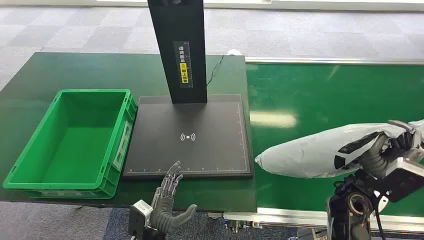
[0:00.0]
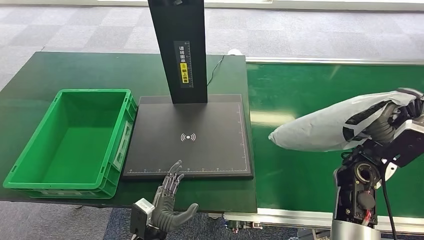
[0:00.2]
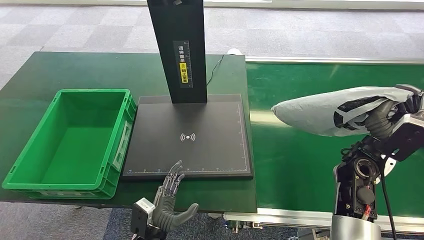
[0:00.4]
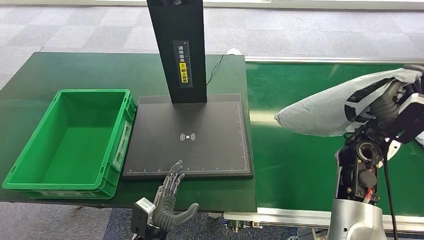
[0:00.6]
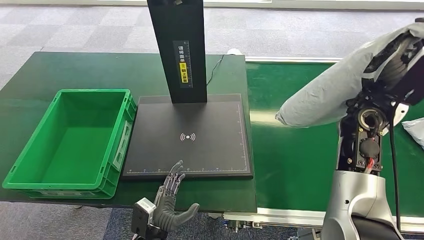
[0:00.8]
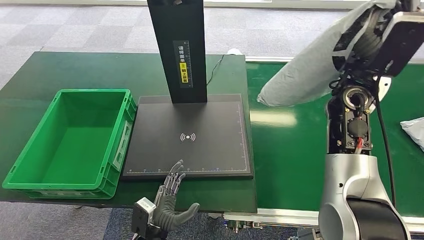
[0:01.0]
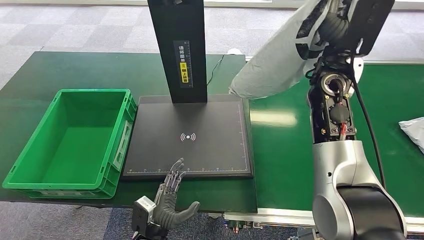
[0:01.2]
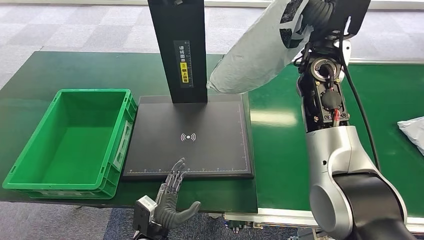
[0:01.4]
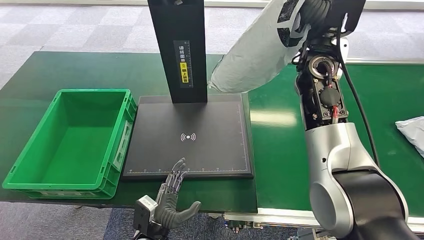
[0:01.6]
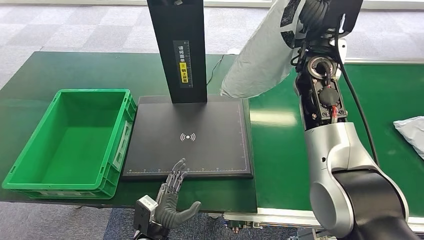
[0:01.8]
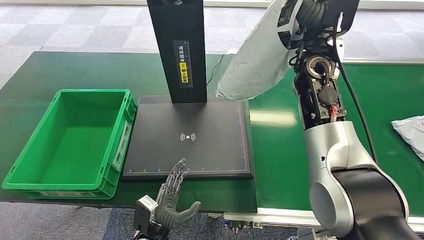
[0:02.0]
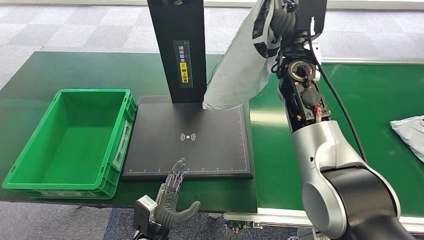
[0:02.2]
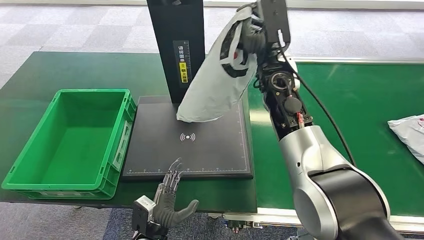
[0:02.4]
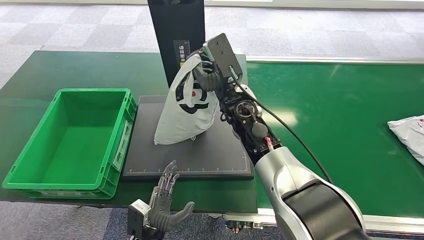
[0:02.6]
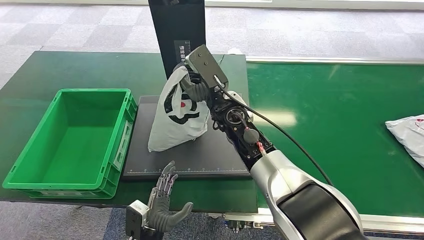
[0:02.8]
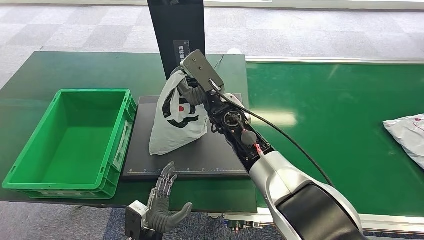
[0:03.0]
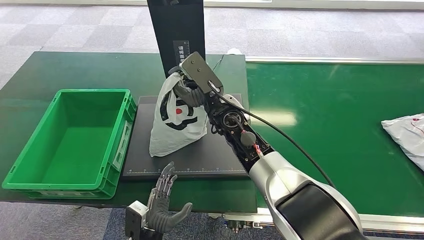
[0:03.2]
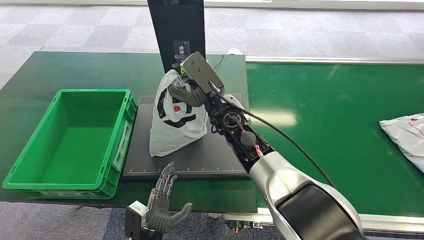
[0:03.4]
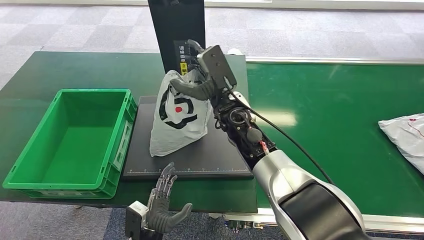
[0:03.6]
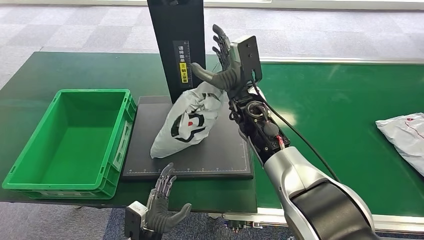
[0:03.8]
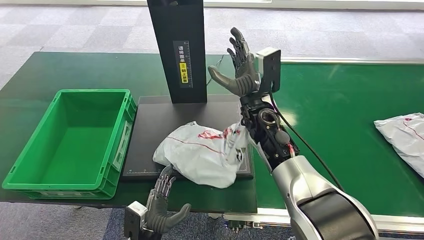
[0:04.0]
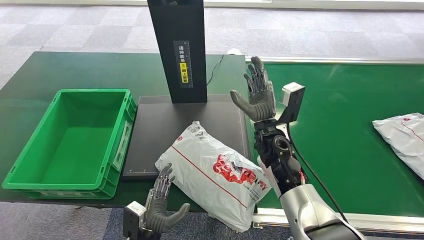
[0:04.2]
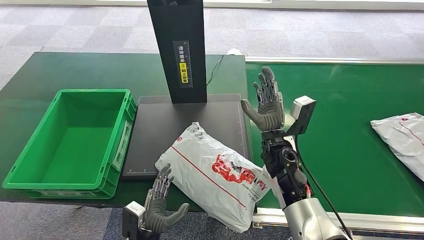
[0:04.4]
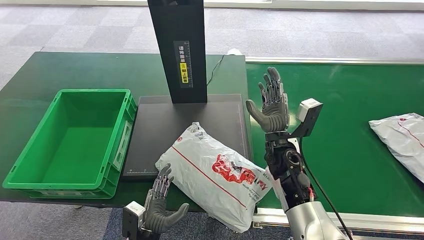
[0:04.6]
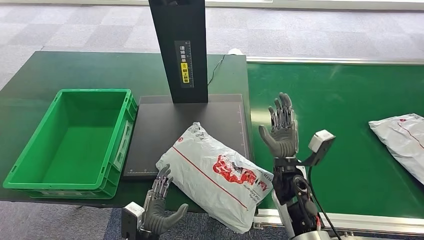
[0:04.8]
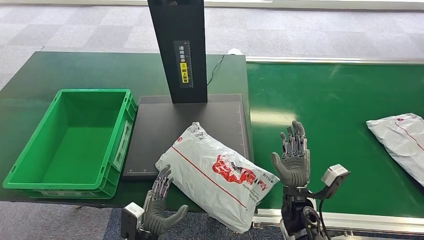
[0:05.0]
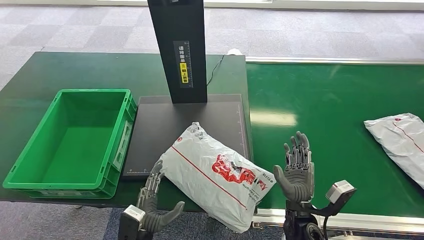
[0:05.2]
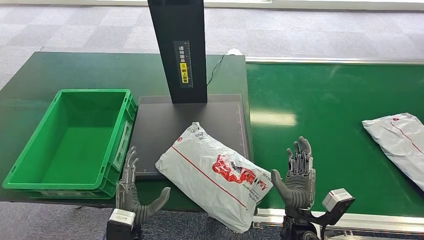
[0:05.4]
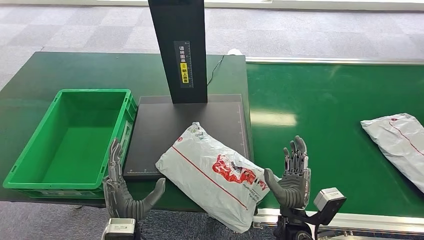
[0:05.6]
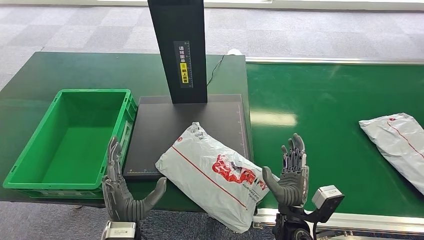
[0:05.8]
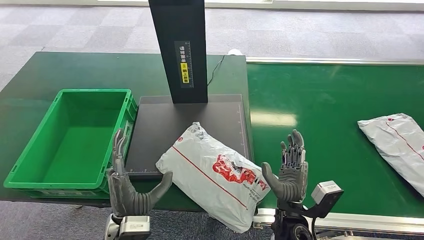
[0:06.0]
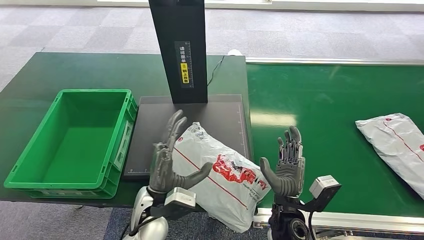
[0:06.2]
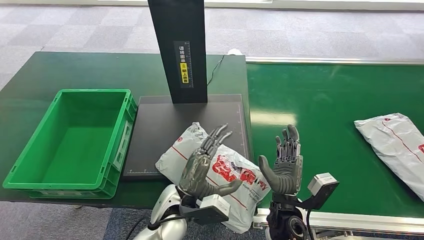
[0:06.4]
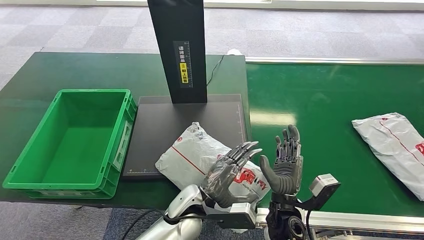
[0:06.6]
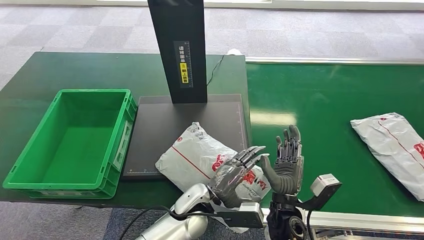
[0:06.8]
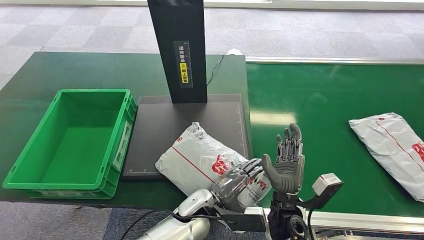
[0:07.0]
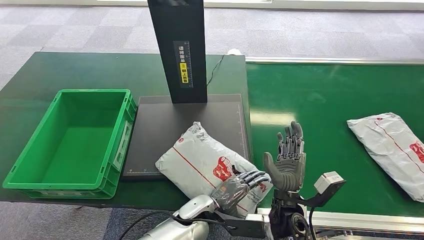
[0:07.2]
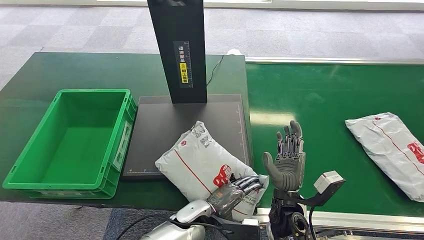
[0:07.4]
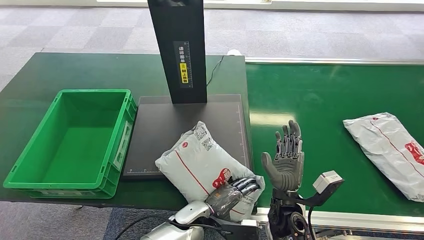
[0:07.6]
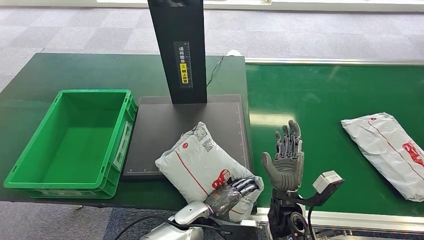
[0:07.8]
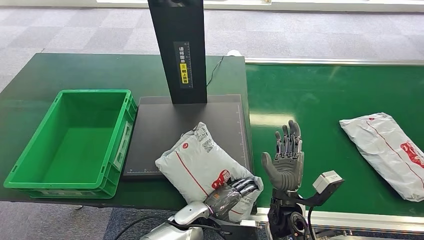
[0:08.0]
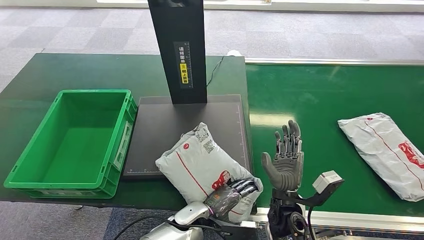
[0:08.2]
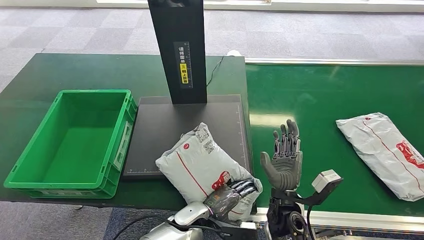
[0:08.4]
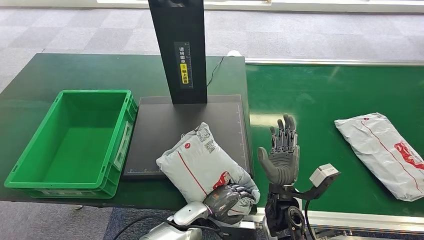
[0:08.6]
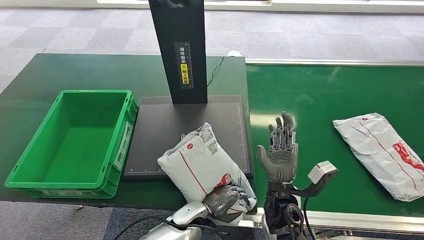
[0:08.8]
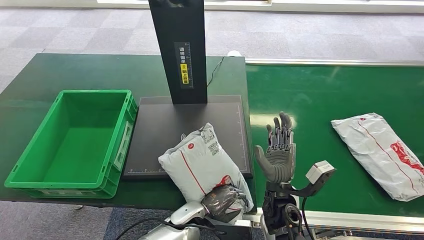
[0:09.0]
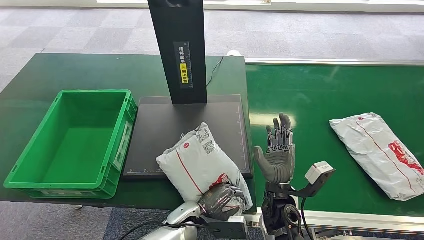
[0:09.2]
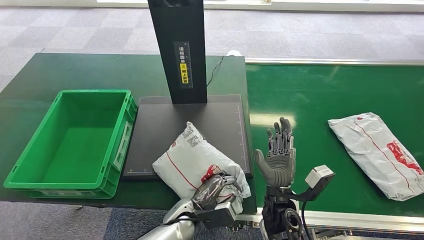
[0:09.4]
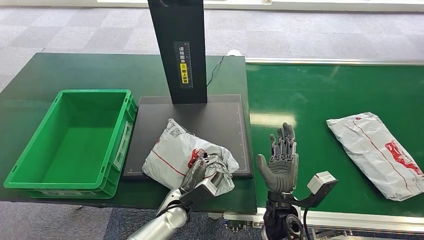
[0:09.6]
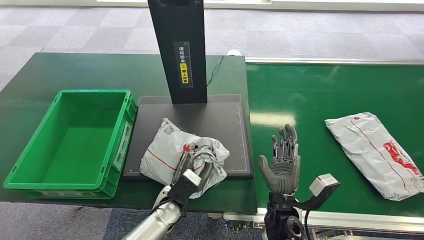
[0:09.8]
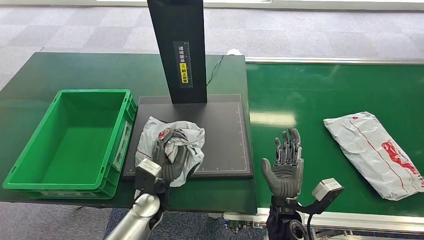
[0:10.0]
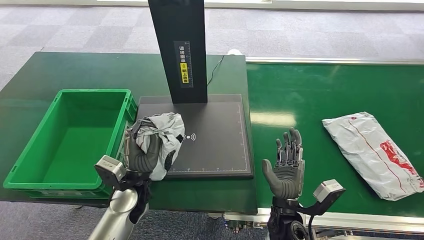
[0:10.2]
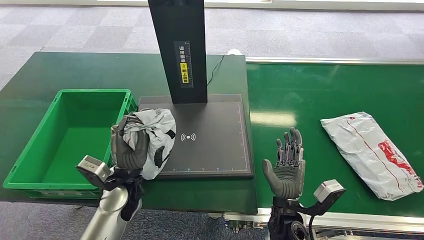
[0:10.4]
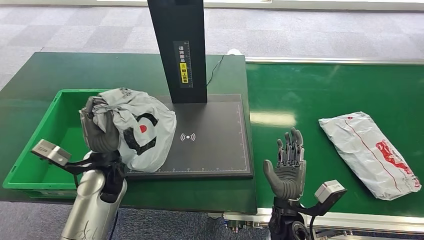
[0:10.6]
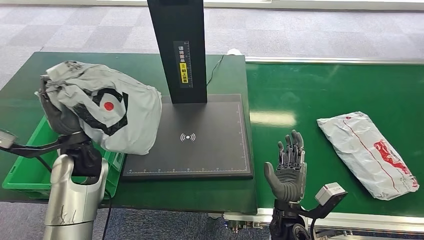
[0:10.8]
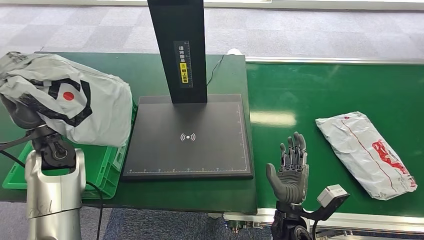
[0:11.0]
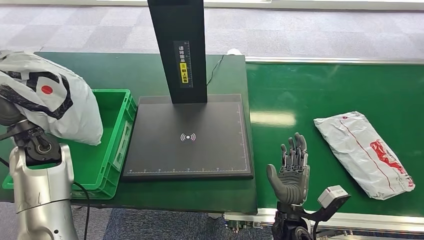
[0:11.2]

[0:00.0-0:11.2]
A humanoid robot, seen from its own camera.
4.8 to 6.4 s: The left hand shifts approximately 15 cm upward, to the right and forward, while the right hand heads backward, covering roughly 10 cm.
6.4 to 8.0 s: The left hand moves downward, some 10 cm.

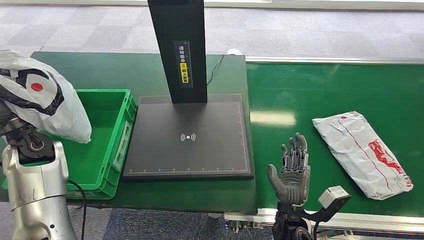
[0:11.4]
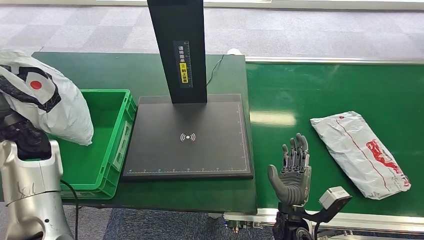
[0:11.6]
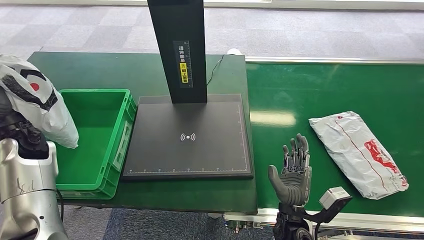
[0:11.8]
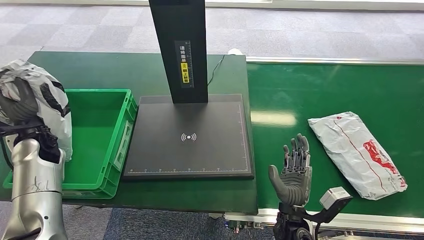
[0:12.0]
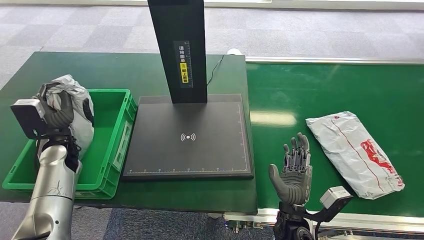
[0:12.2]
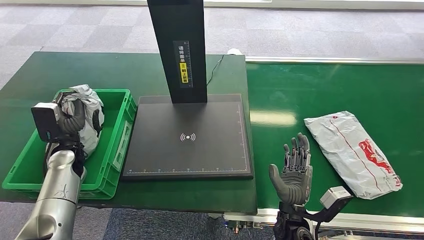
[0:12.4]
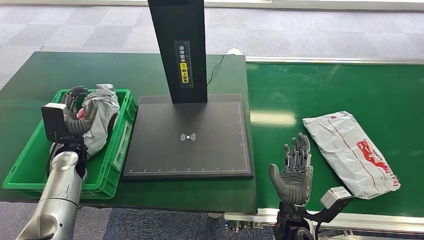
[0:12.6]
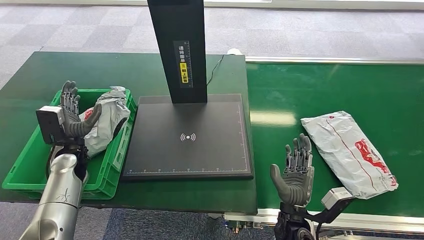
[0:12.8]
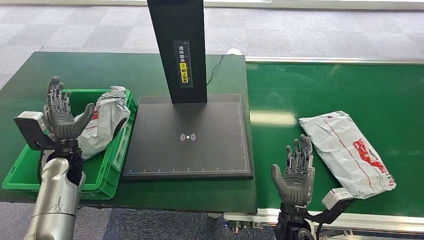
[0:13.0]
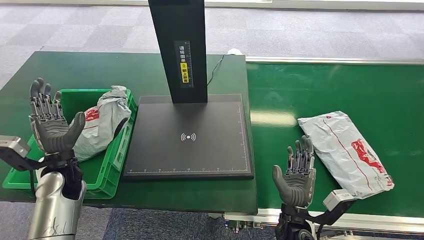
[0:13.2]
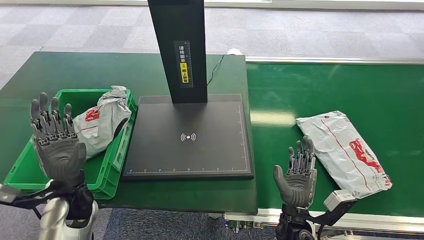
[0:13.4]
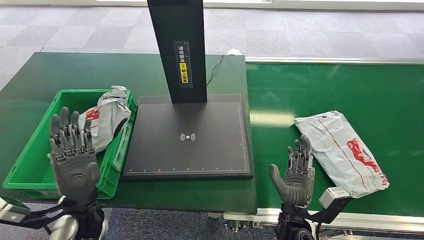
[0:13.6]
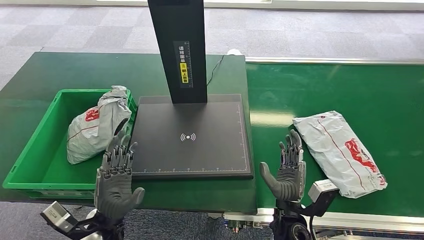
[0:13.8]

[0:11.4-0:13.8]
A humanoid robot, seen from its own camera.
Step, 13.6 to 13.8 s: Place the package into the parcel locker.
11.4 to 12.6 s: The left hand heads downward, covering approximately 10 cm.
12.6 to 13.8 s: The left hand moves backward and to the right, roughly 25 cm.

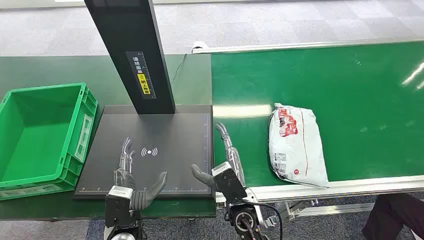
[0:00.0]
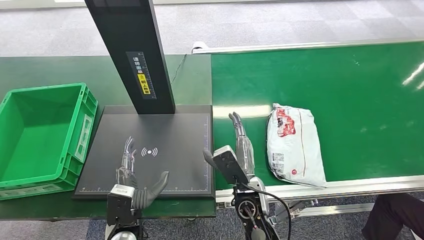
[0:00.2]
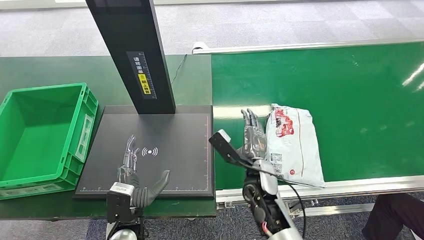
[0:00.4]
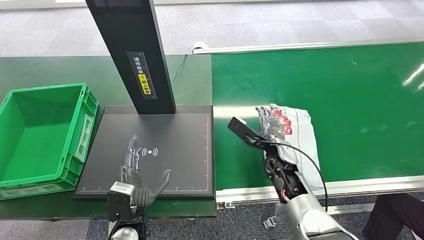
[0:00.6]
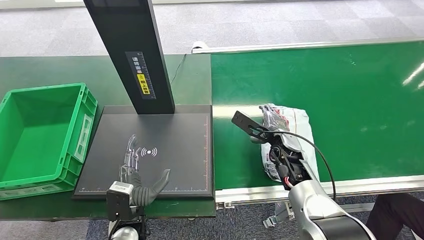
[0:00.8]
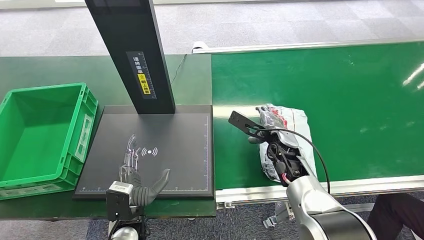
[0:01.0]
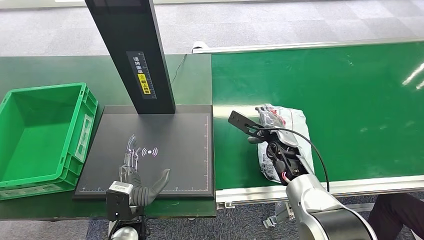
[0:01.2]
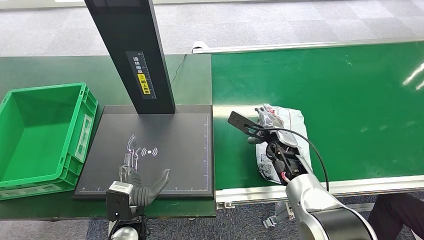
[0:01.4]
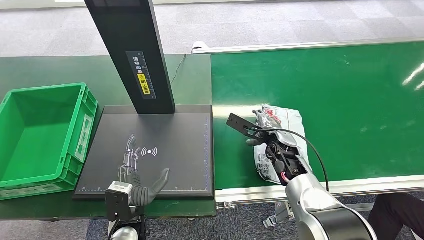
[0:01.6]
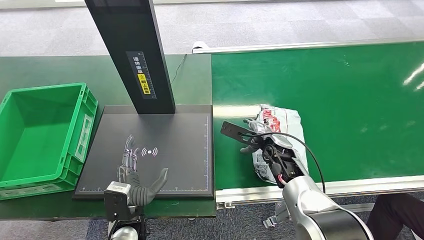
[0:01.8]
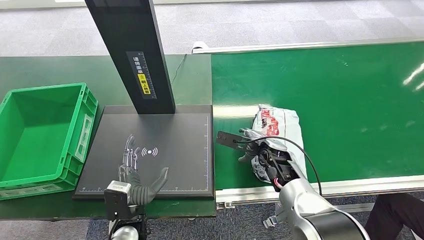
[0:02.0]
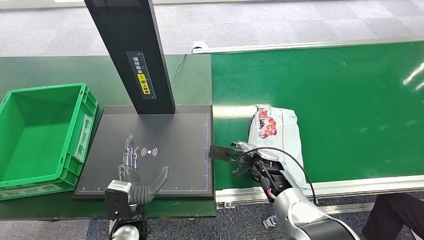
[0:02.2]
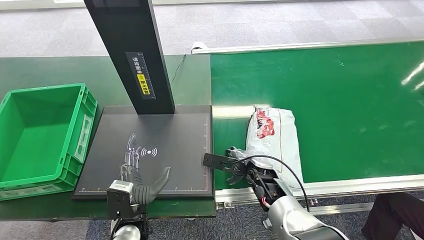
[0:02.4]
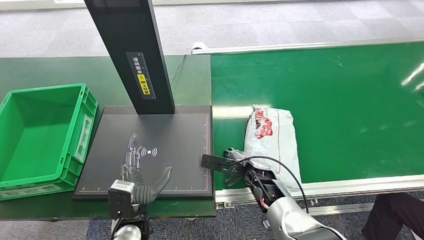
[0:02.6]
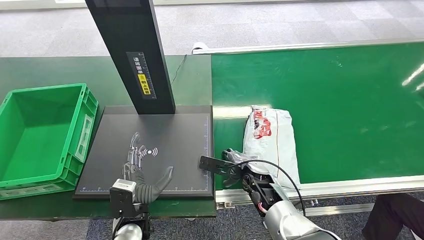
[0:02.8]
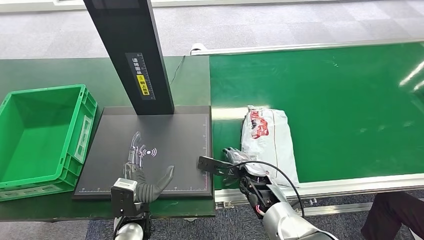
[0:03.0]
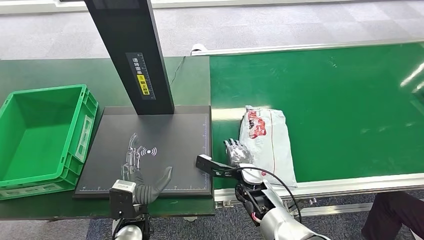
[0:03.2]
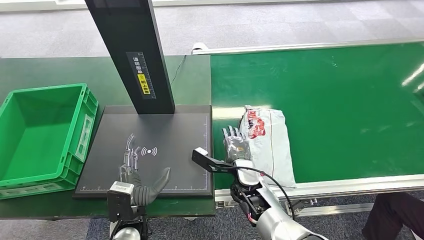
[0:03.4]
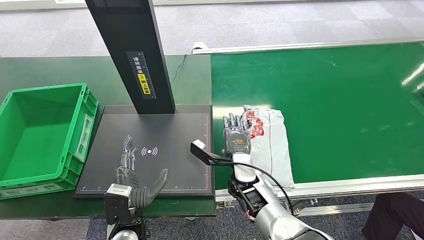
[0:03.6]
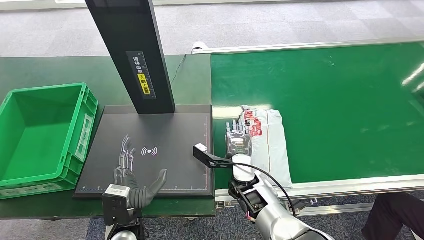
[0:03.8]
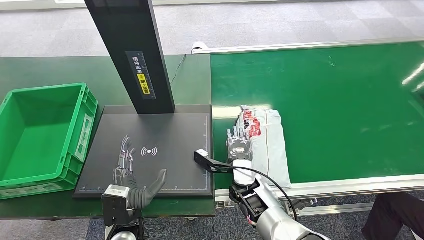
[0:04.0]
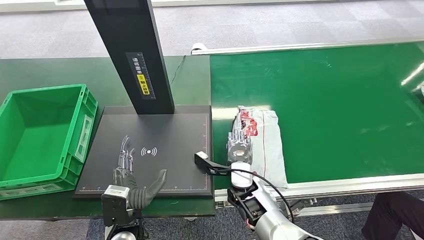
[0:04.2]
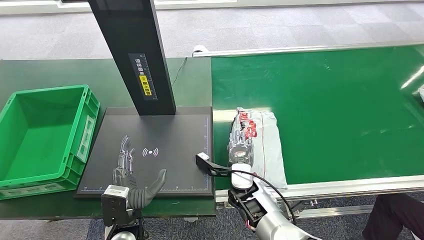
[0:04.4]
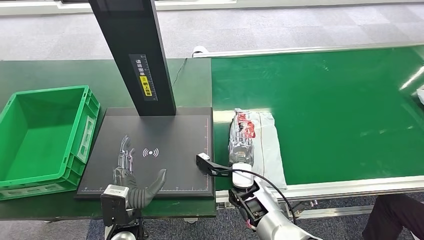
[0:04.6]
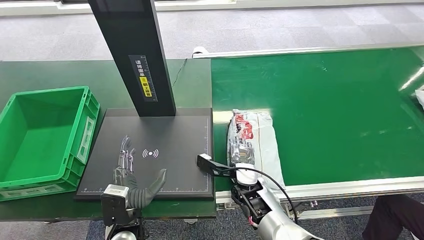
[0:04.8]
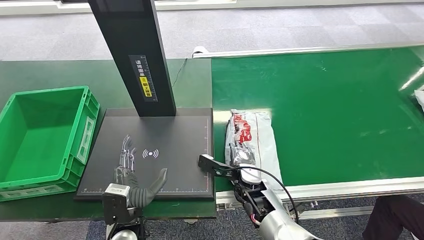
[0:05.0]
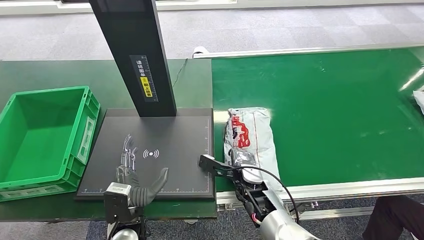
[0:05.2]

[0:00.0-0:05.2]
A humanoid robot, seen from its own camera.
1.8 to 3.4 s: The right hand heads to the left and backward, covering about 10 cm.
